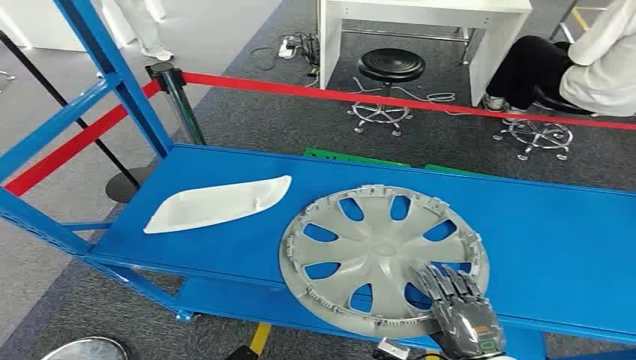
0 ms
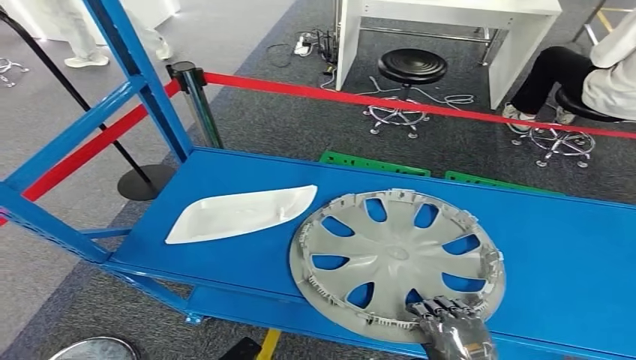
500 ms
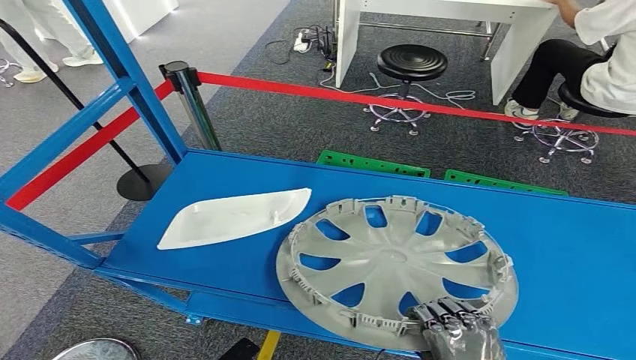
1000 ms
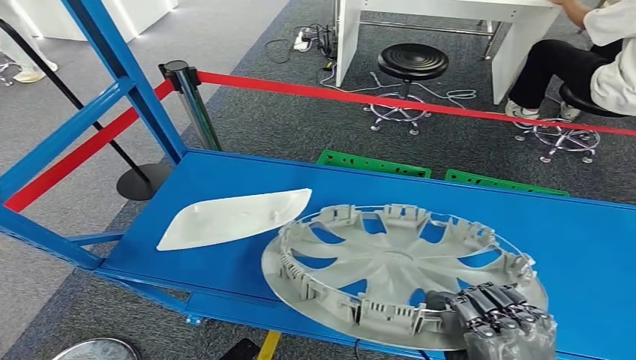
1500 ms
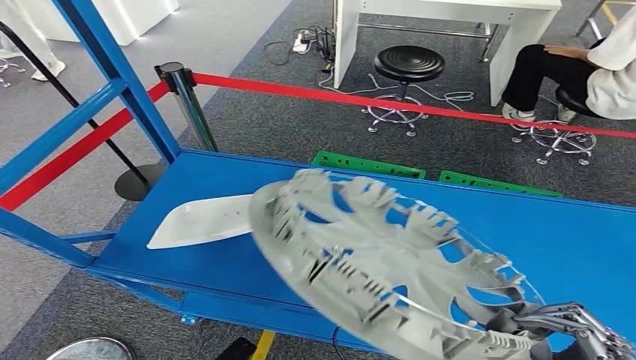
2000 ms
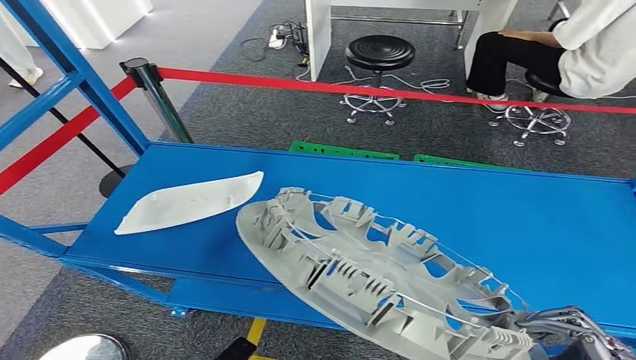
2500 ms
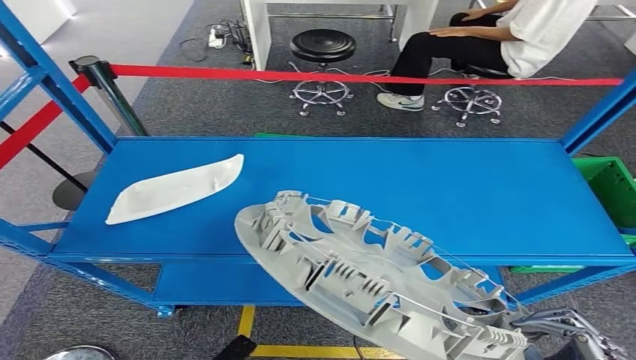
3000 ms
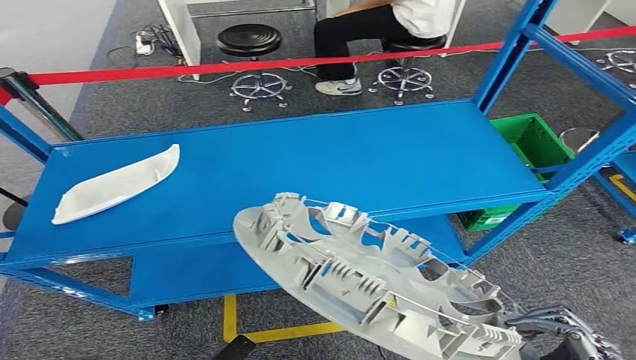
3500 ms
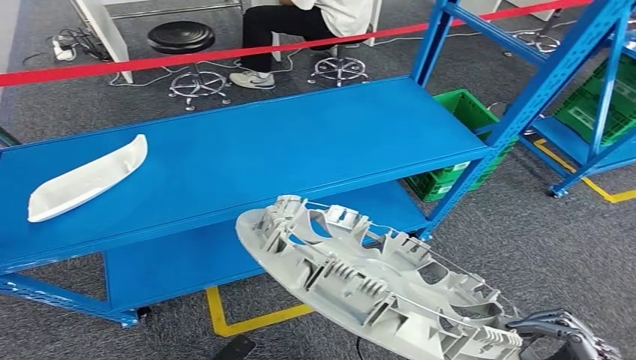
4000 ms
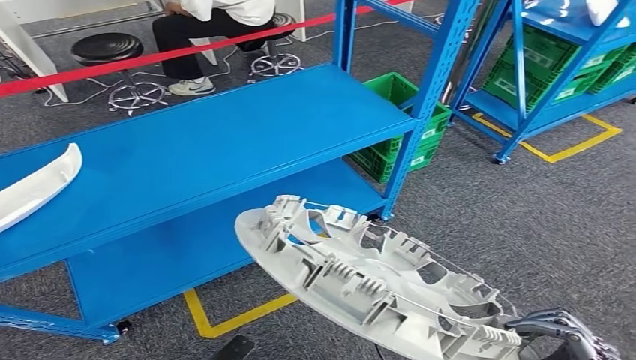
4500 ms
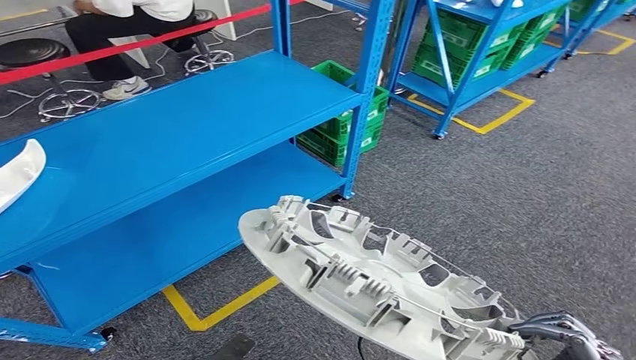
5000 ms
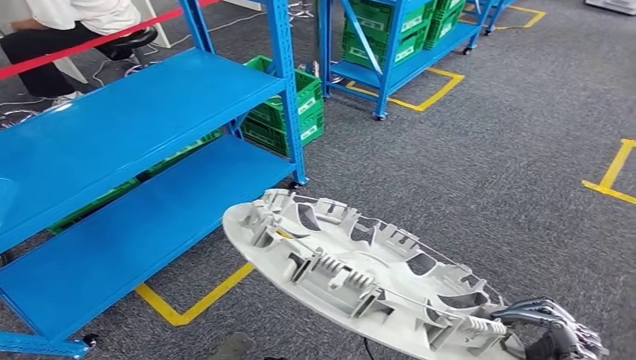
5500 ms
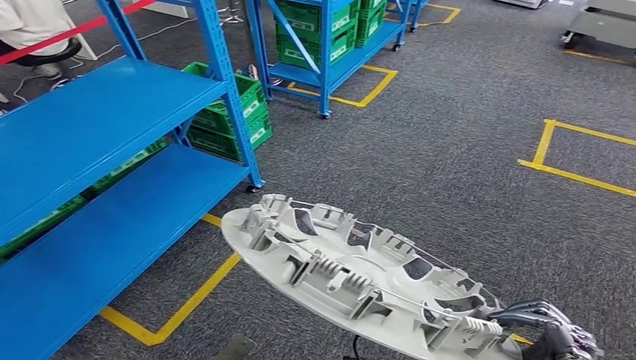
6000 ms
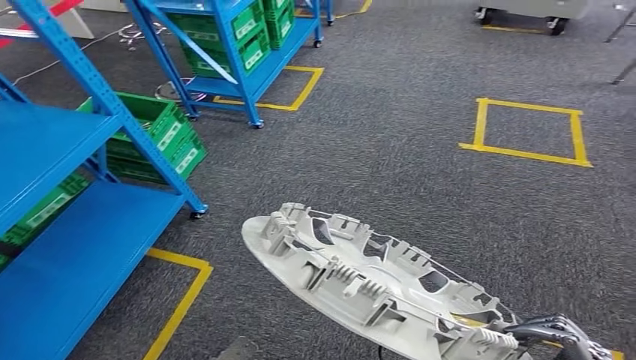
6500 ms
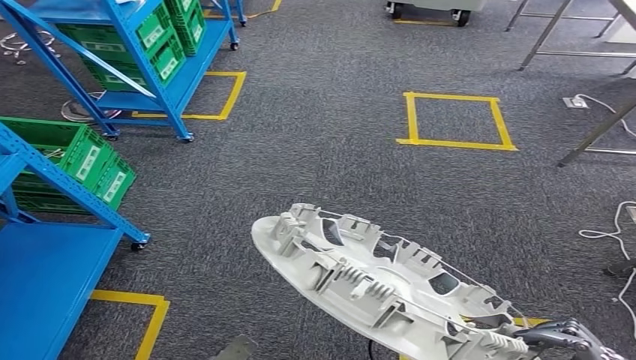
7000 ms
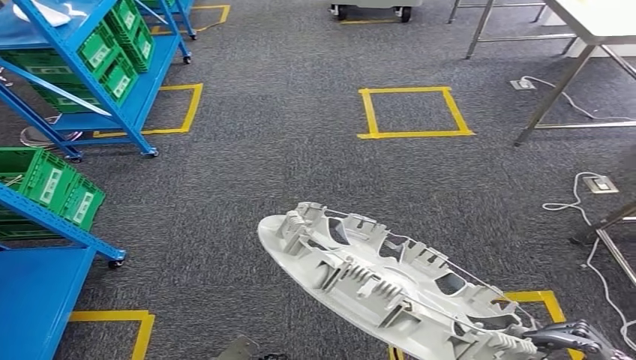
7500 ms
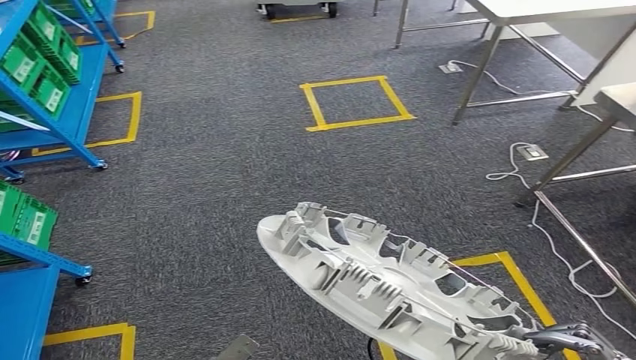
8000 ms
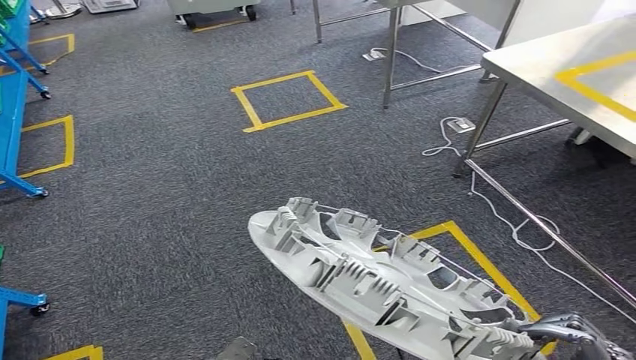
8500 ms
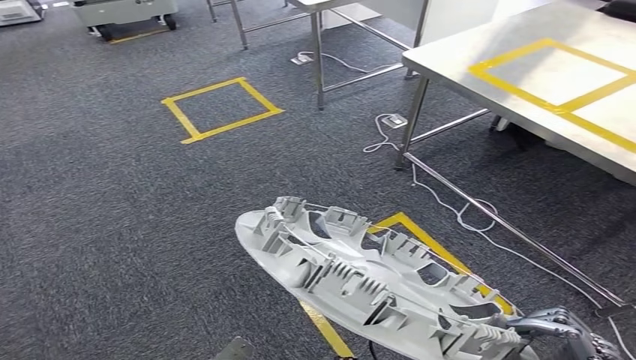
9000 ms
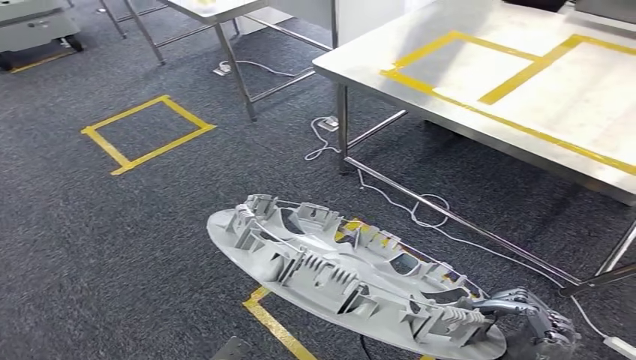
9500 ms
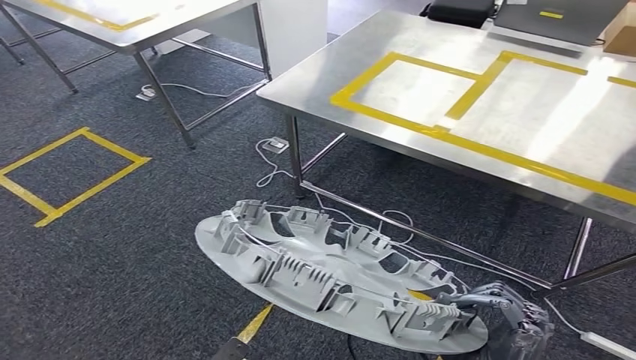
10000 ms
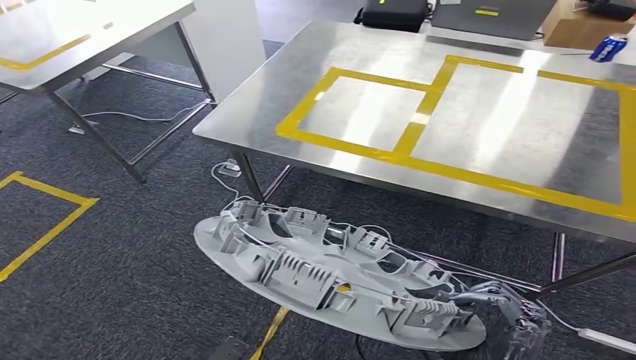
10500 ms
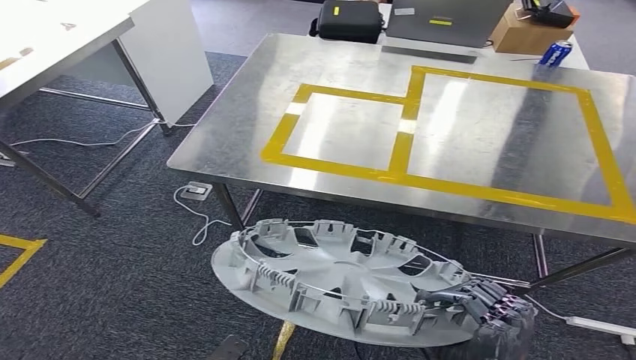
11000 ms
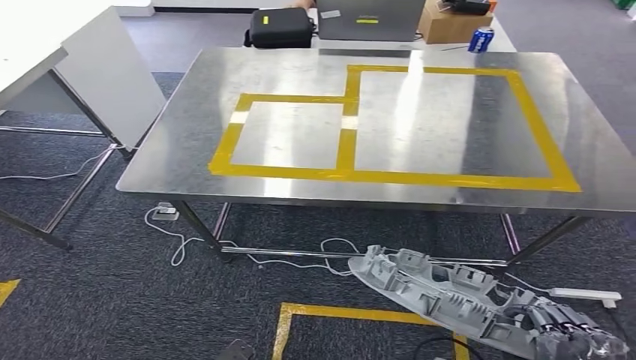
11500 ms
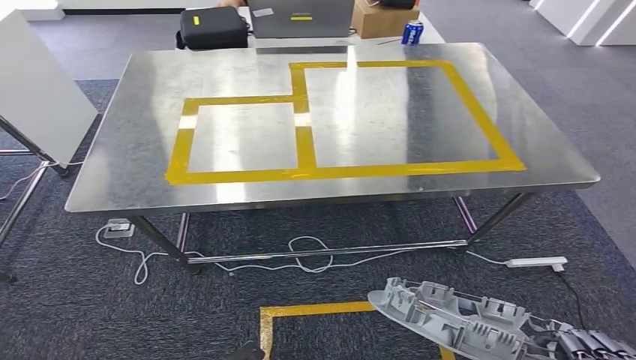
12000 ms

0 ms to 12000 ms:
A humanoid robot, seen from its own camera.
Step, 0 ms to 3000 ms: Pick up the small component from the shelf.

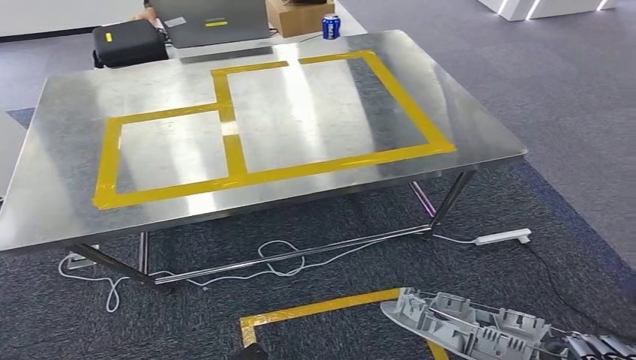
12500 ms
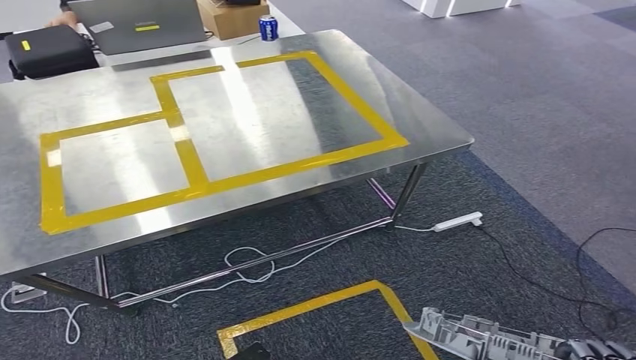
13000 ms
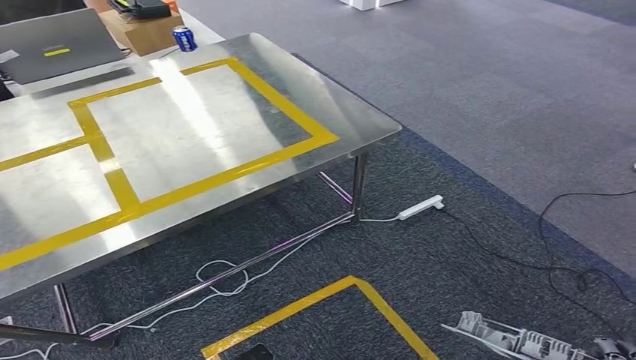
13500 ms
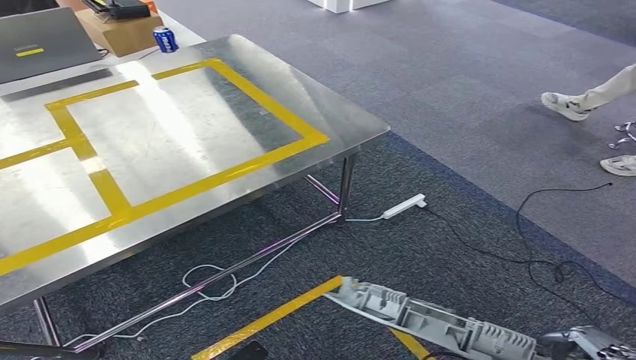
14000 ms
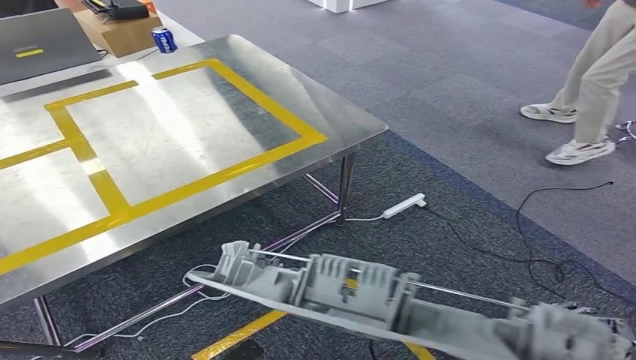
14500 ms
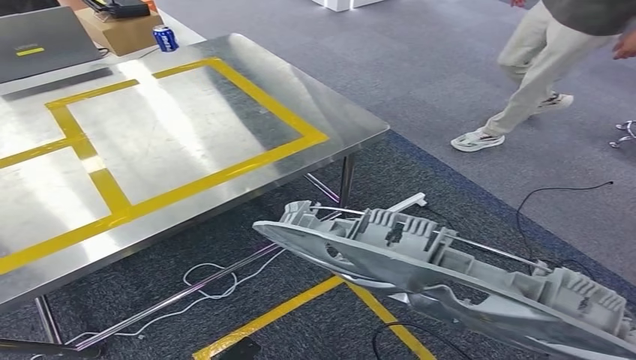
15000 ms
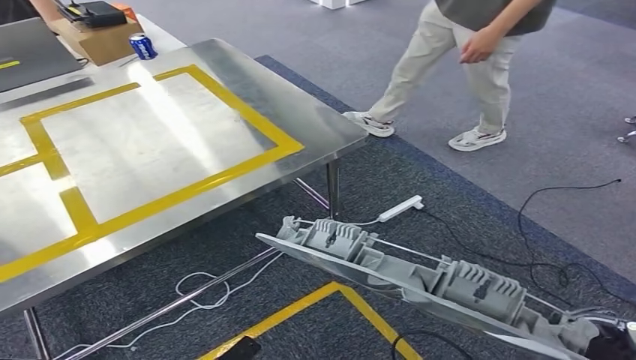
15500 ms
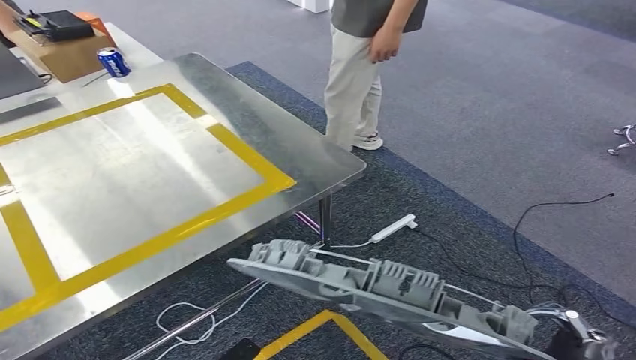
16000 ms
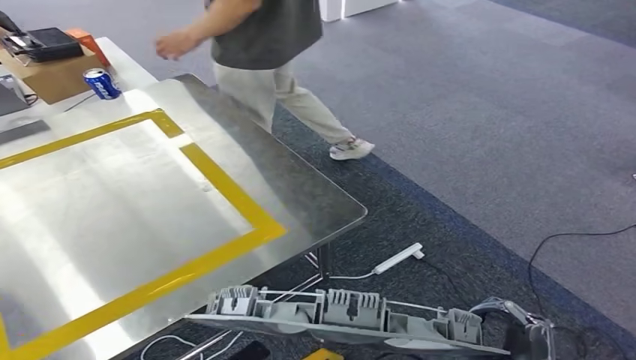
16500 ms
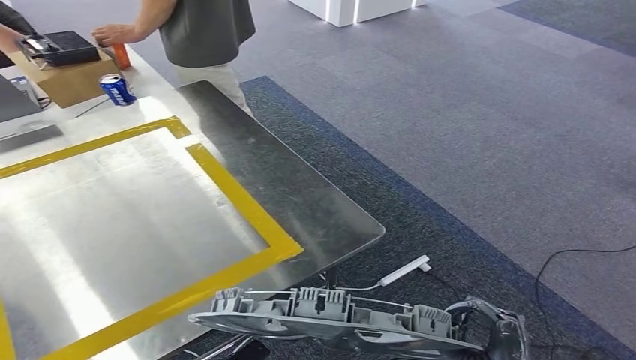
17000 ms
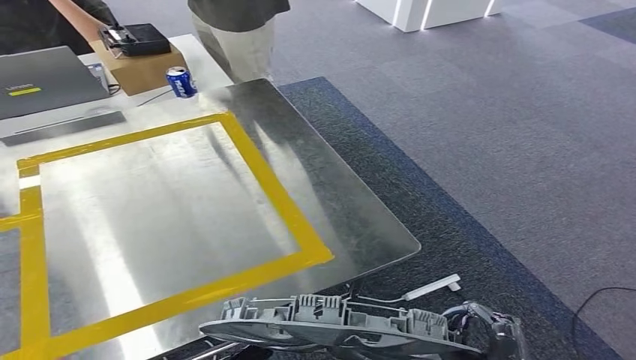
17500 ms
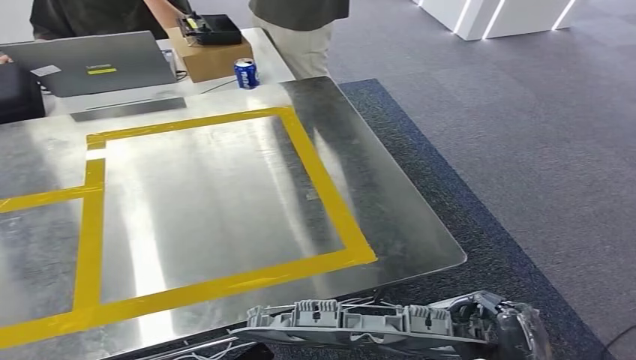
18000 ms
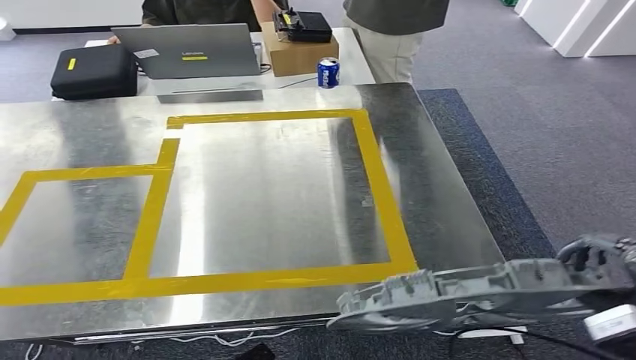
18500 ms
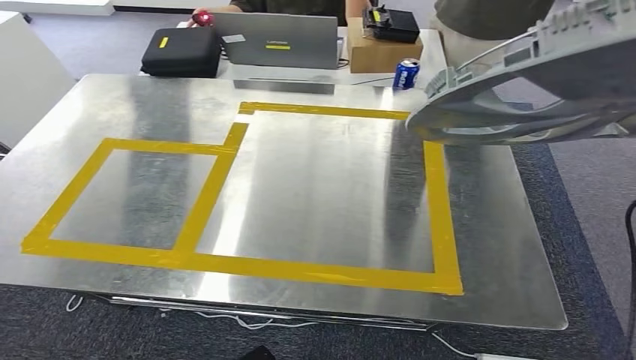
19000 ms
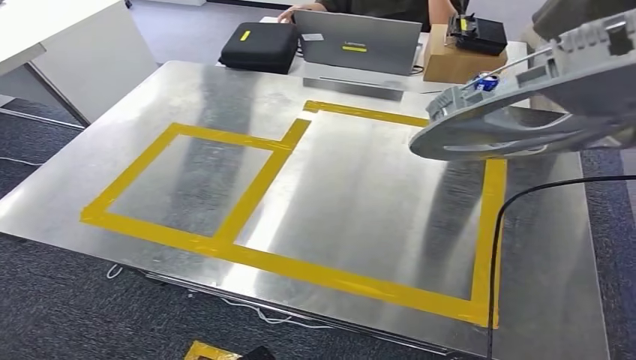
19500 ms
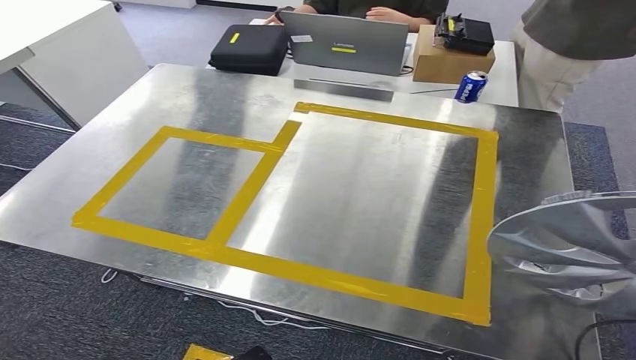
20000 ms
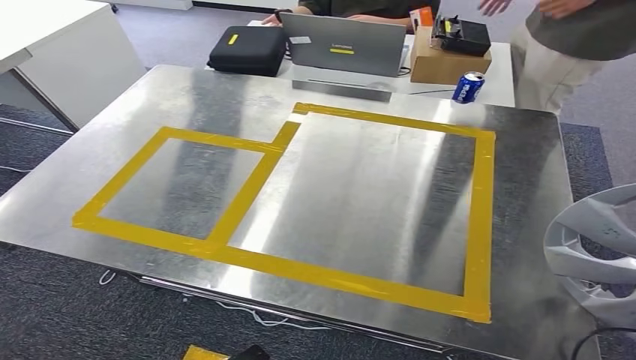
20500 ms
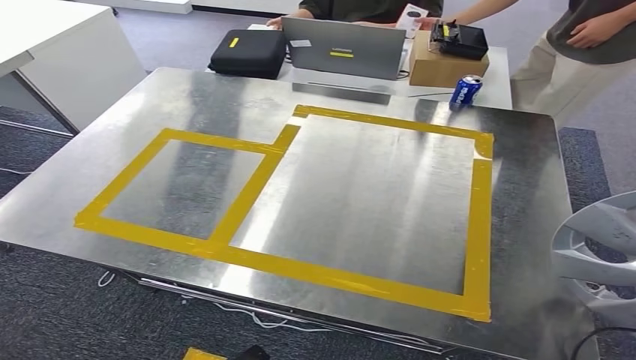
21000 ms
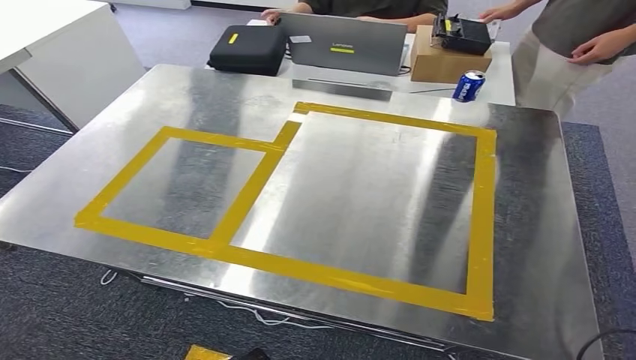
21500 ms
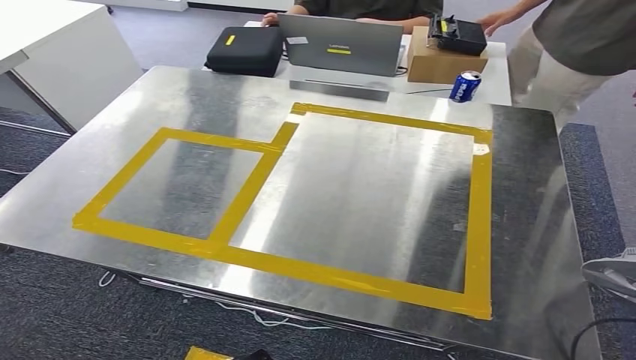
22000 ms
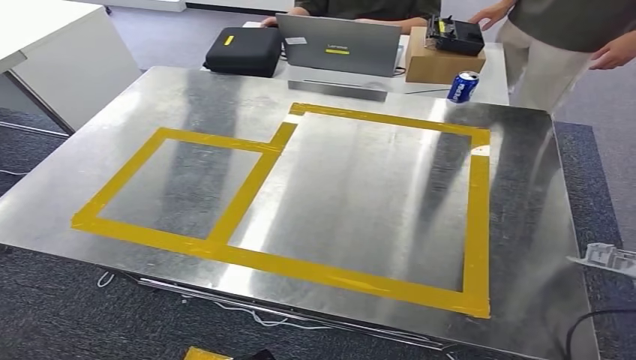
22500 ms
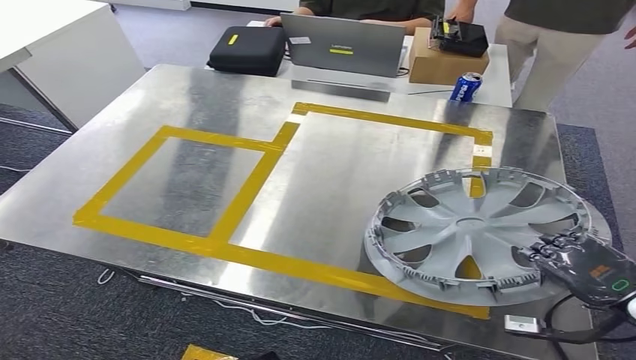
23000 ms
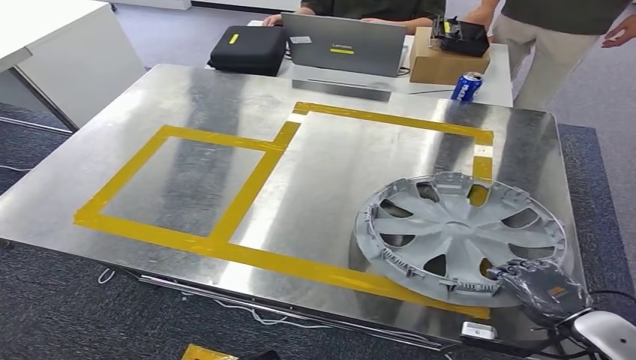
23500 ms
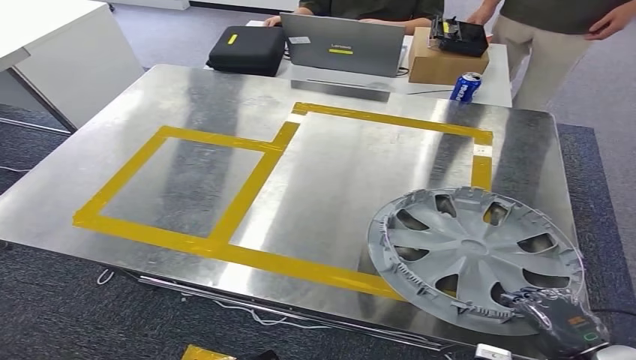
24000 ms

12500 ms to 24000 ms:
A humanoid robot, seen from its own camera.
20000 ms to 22000 ms: The right hand shifts approximately 5 cm to the left.
